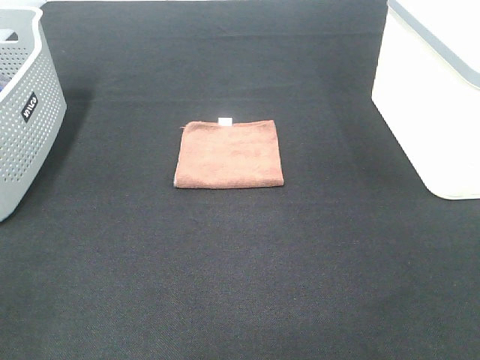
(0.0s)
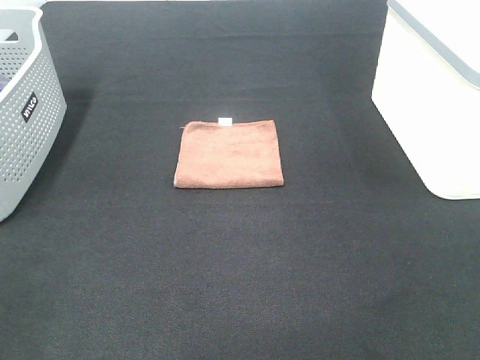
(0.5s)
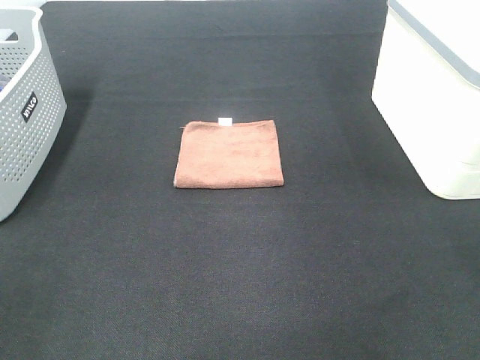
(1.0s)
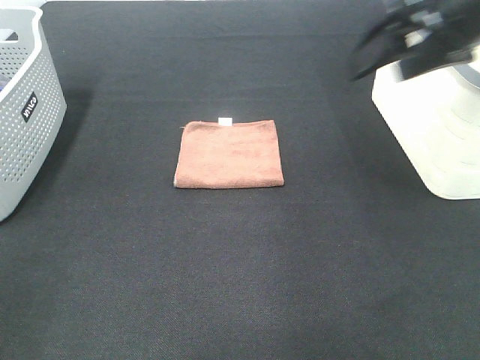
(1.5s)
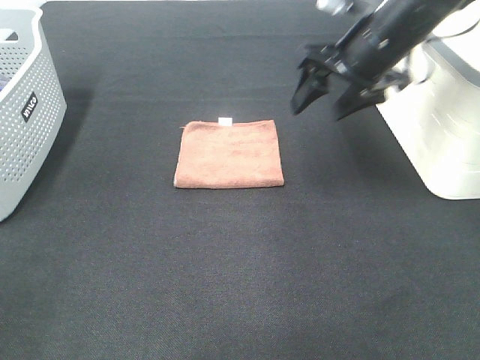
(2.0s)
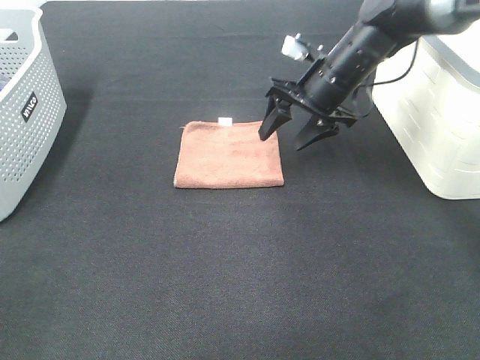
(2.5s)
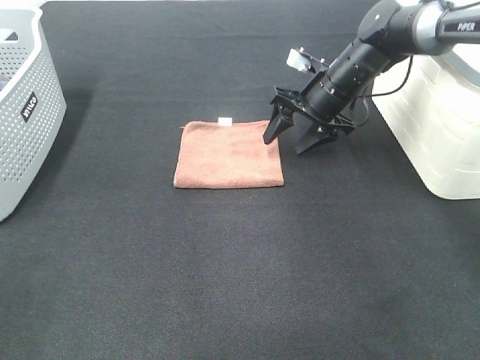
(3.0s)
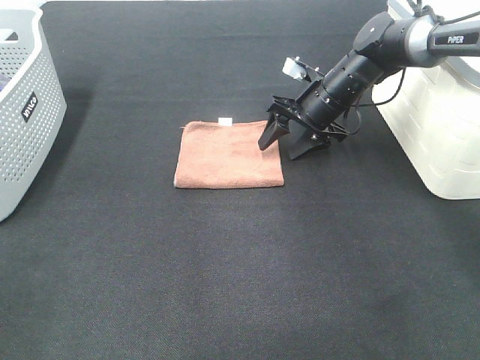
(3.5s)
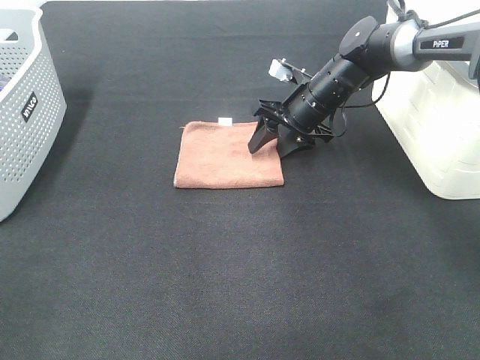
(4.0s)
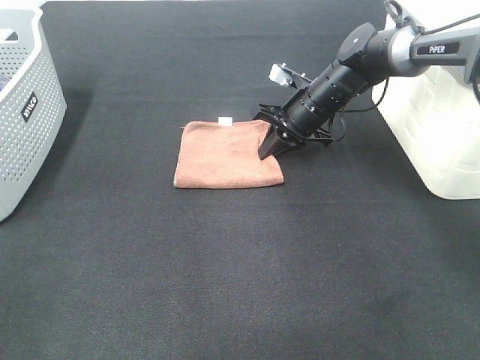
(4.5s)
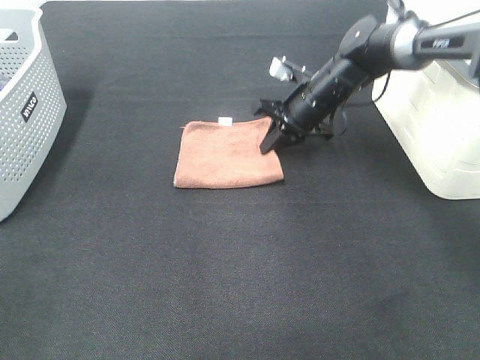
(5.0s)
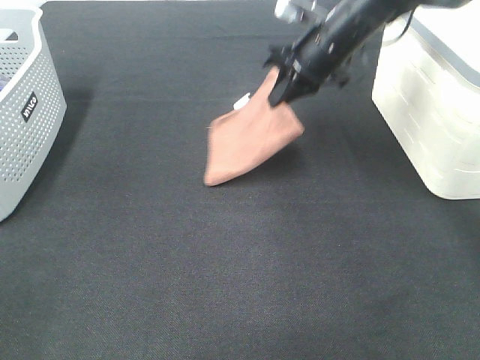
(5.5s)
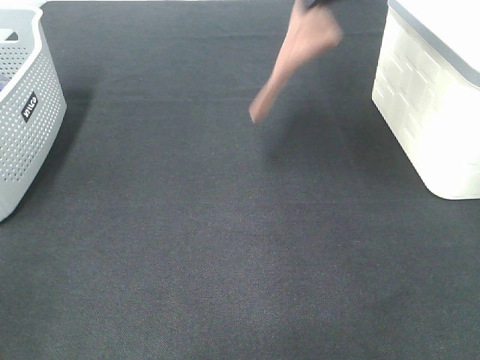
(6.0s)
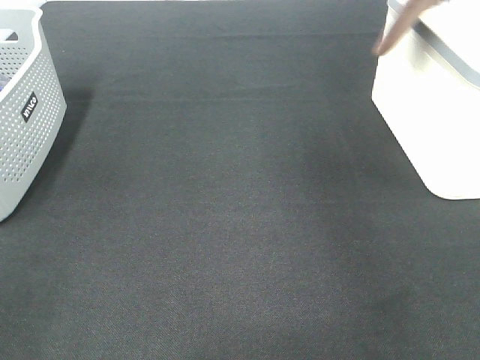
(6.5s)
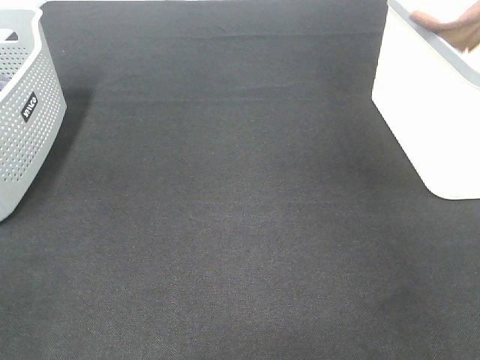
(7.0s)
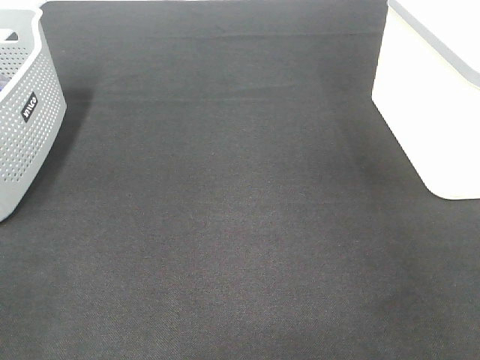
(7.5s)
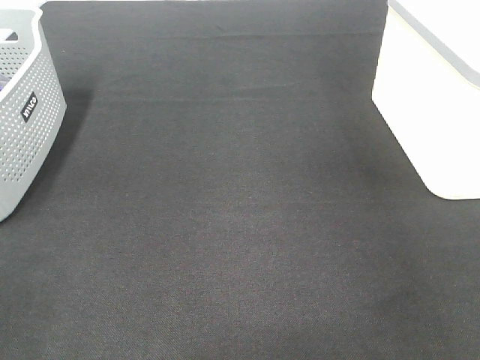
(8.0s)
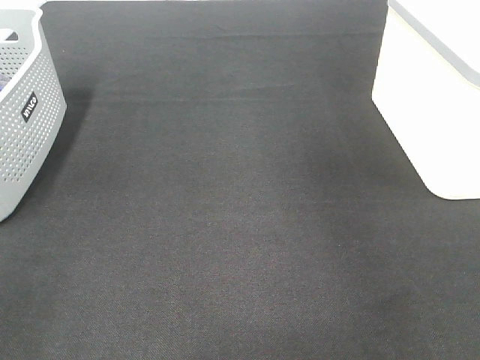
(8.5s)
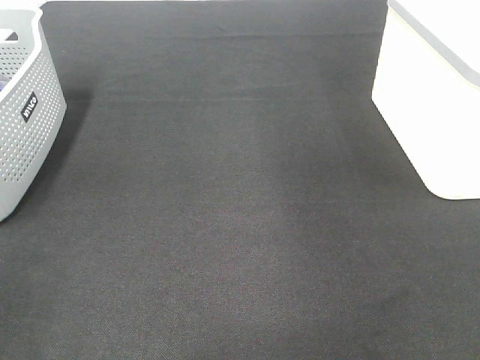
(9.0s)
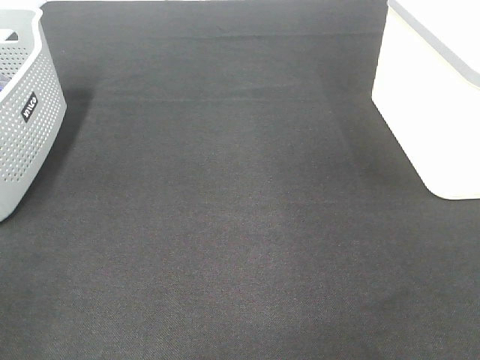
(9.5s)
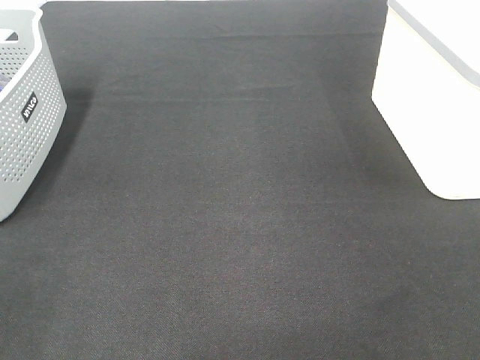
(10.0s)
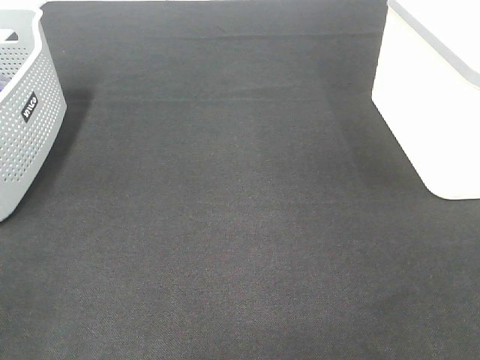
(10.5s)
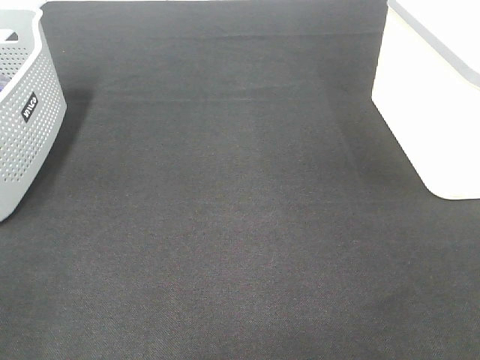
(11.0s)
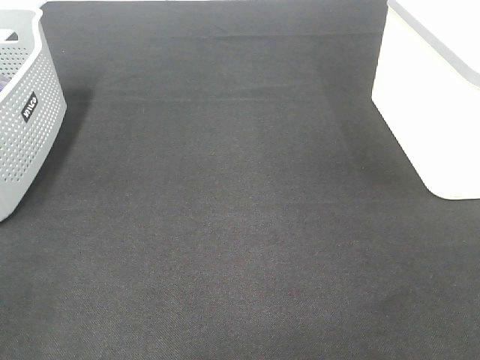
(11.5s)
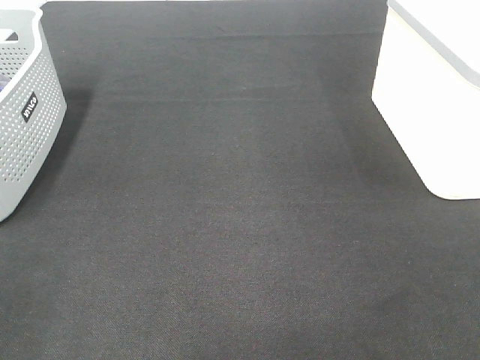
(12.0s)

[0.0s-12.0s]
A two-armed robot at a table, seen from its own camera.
Step, 0.0s to 5.0s: Right hand: grab the folded brown towel.
Step, 5.5s to 7.5s: Right hand: place the brown towel in right basket.
0.0s to 2.0s: The right gripper travels forward by some 40 cm.
2.0s to 4.0s: The right gripper travels downward and forward by about 15 cm.
4.0s to 6.0s: The right gripper moves upward, approximately 25 cm, and closes its fingers.
6.0s to 8.0s: The right gripper heads to the right, covering roughly 20 cm, and opens its fingers.

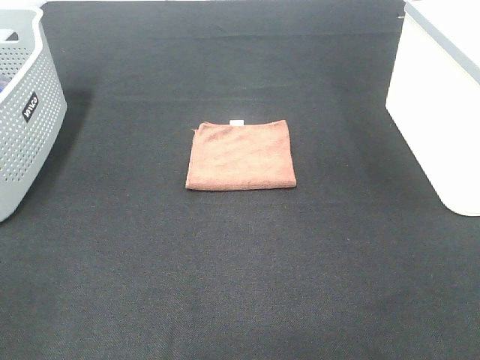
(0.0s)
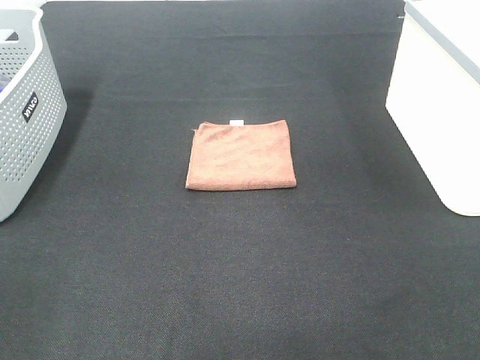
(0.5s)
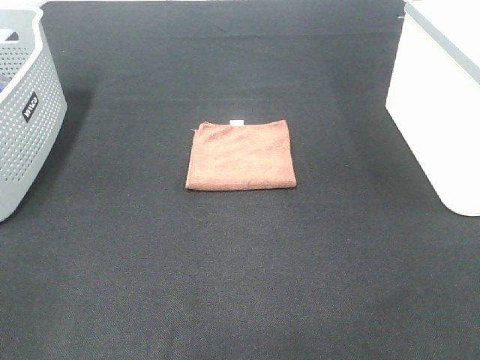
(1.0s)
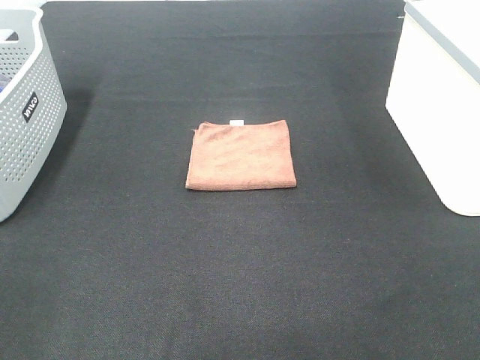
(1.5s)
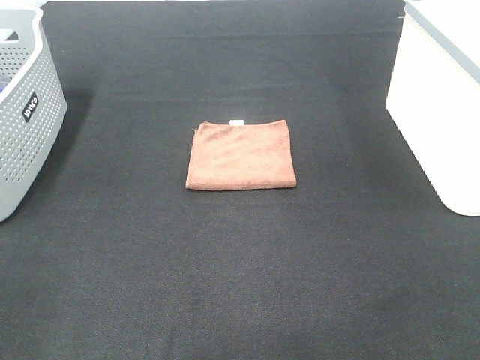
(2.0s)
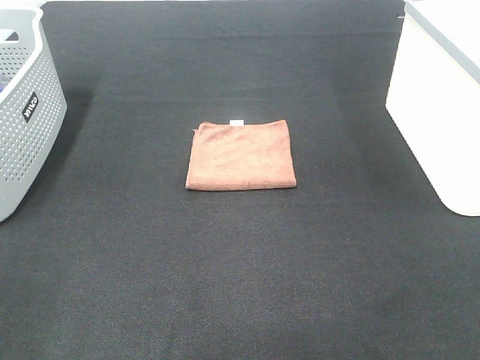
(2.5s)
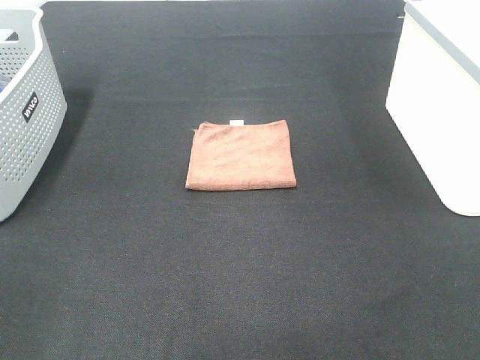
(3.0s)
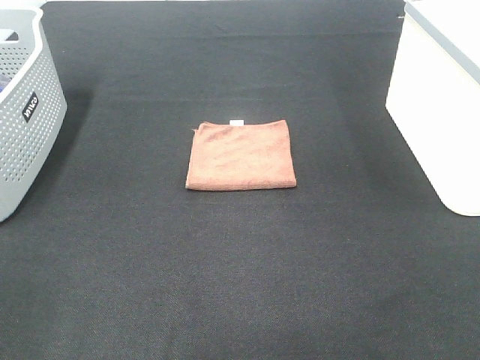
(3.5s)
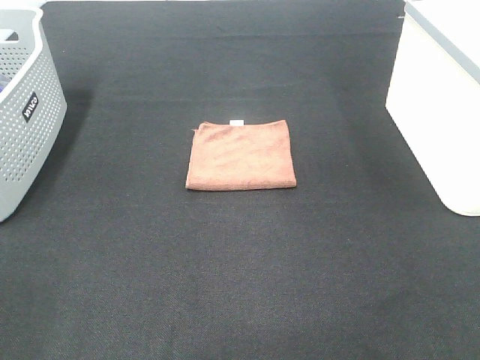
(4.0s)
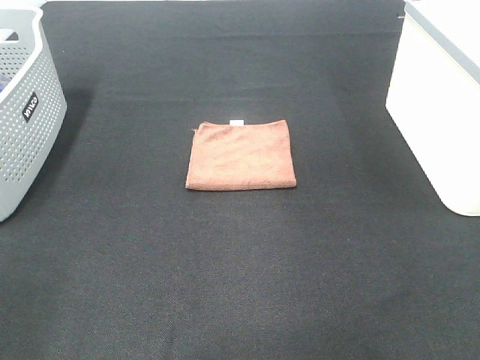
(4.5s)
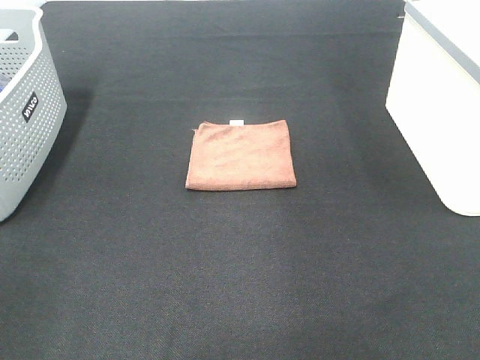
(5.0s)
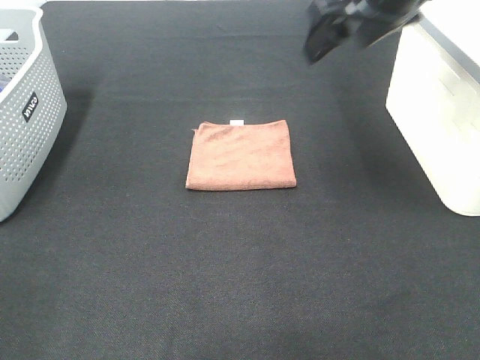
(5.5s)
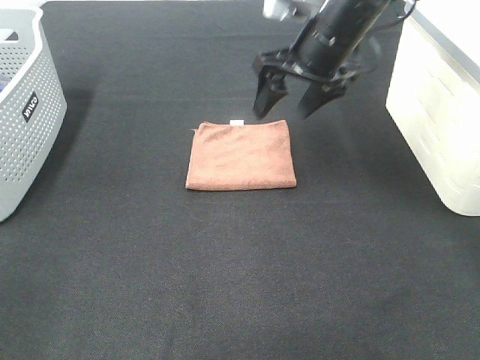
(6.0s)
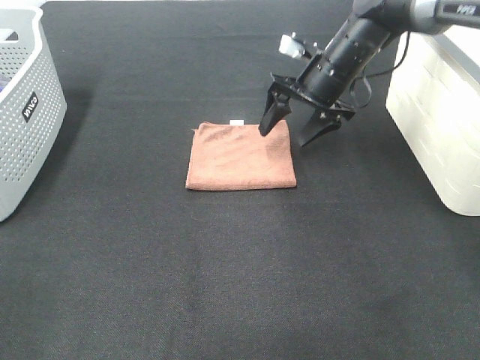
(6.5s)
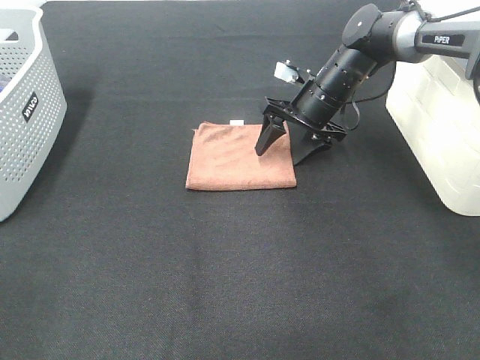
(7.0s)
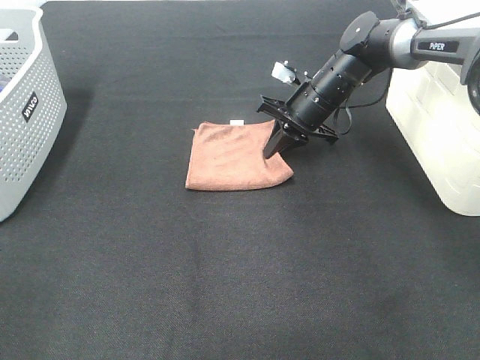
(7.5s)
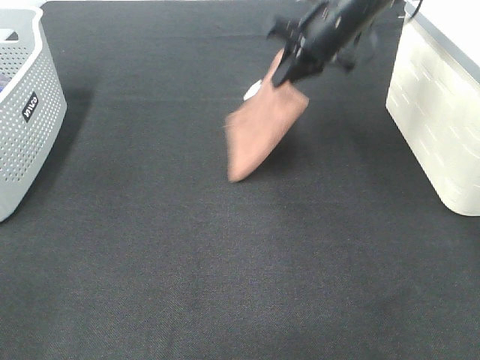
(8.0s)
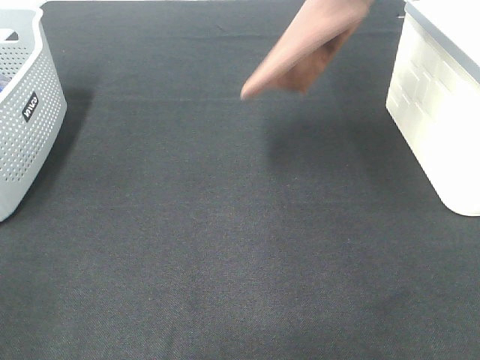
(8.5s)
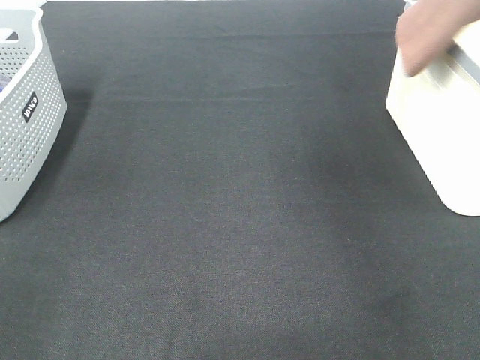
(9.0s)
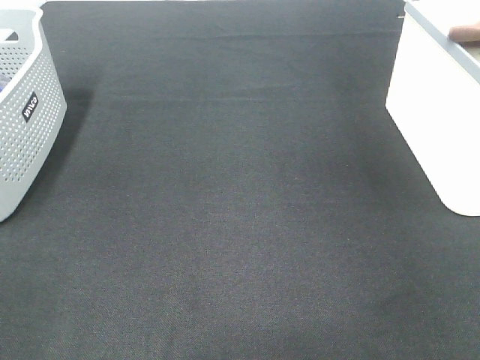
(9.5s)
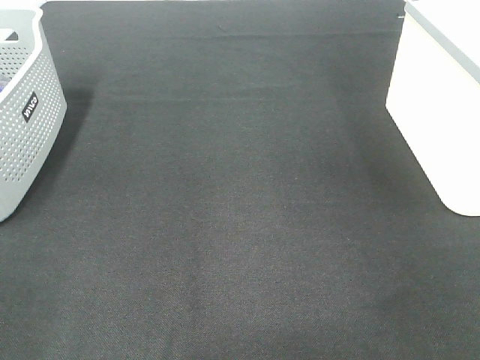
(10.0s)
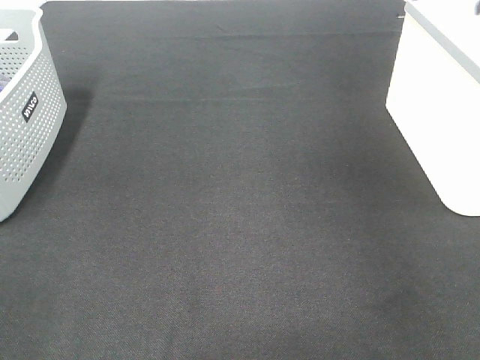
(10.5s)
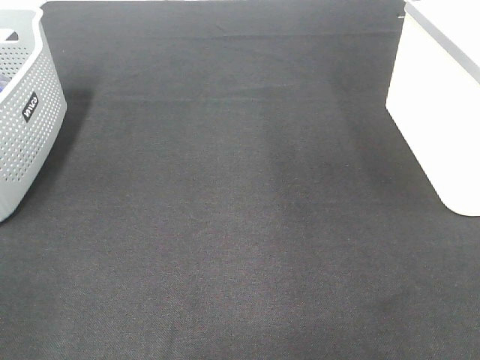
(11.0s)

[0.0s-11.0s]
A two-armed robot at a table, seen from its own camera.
Step, 0.0s to 7.0s: Right hand: grab the folded brown towel.
Step, 7.5s to 10.0s: Right hand: place the brown towel in right basket.
0.0s to 3.5s: Both grippers stay put.
3.5s to 5.5s: The right gripper travels forward by approximately 35 cm.
5.5s to 7.5s: The right gripper goes about 25 cm downward and forward, and closes up.
7.5s to 9.0s: The right gripper moves upward and to the right, approximately 35 cm.
9.0s to 11.0s: The right gripper travels to the left by roughly 10 cm, and opens up.

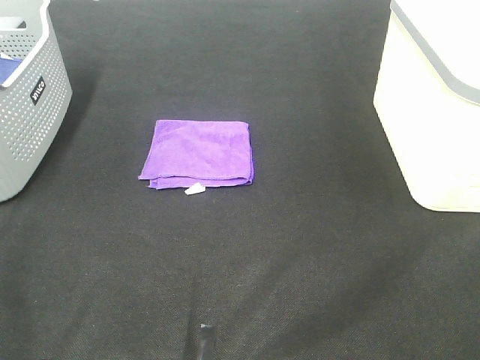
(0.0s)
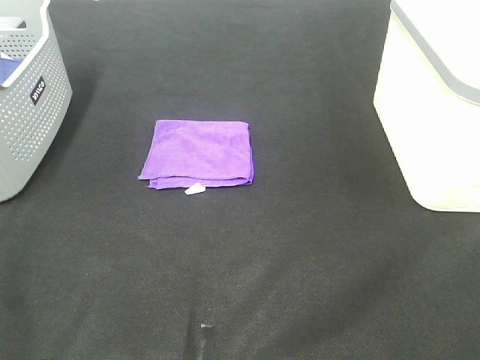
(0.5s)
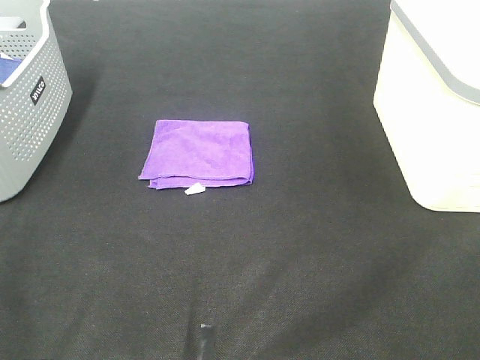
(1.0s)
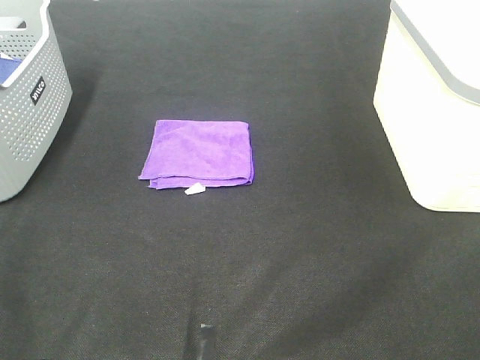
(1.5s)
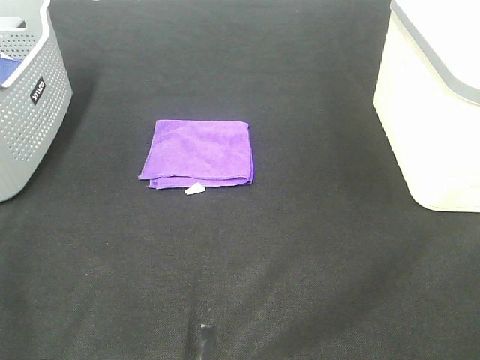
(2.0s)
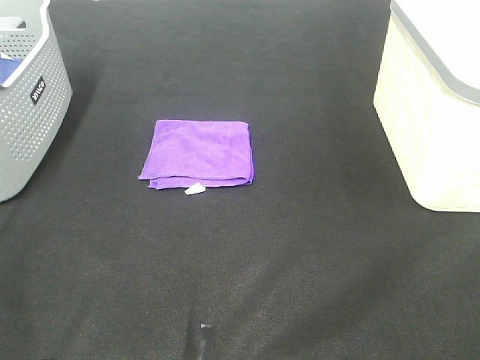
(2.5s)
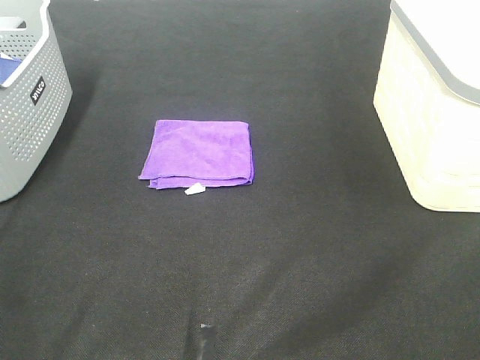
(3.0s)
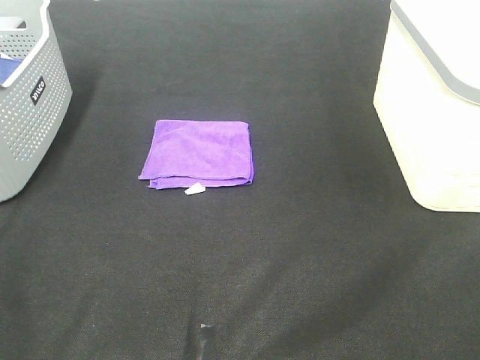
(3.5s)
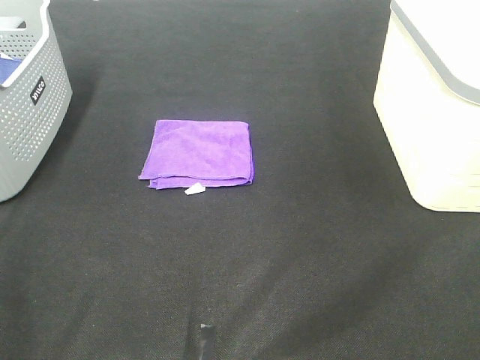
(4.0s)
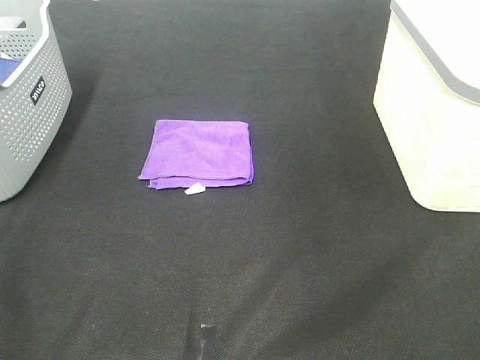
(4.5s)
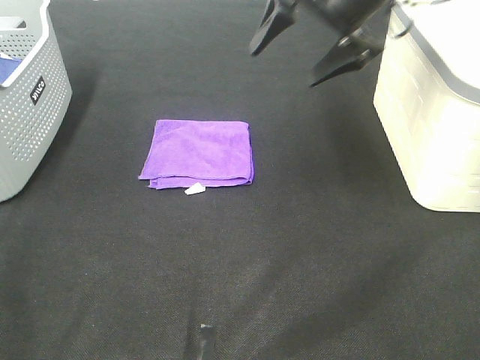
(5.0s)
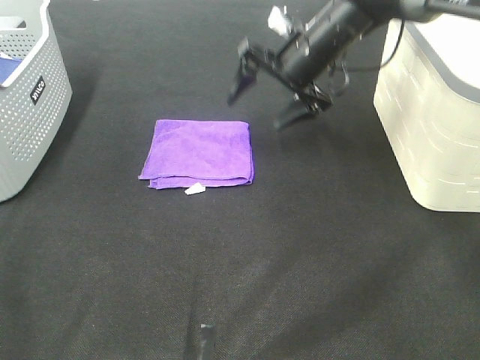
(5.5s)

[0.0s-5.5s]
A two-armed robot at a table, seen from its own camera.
0.0s to 3.5s: Both grippers stay about where they are.
3.5s to 5.5s: The right gripper moves forward, approximately 50 cm.
